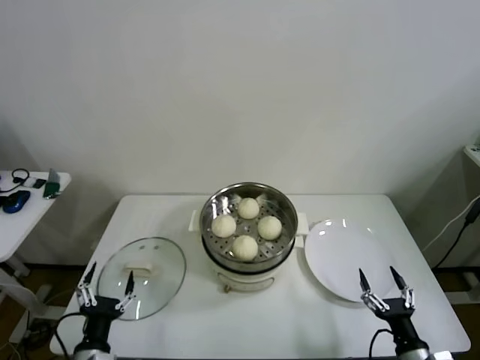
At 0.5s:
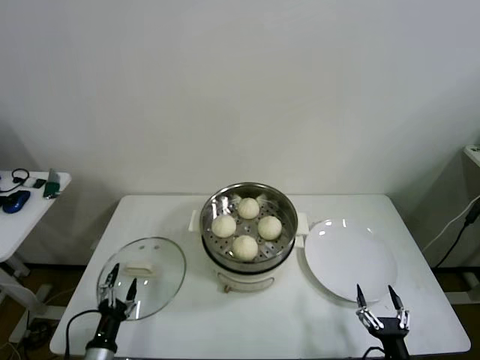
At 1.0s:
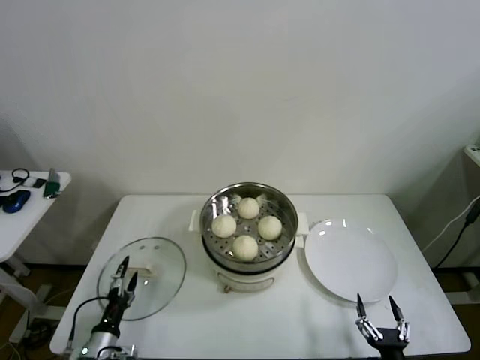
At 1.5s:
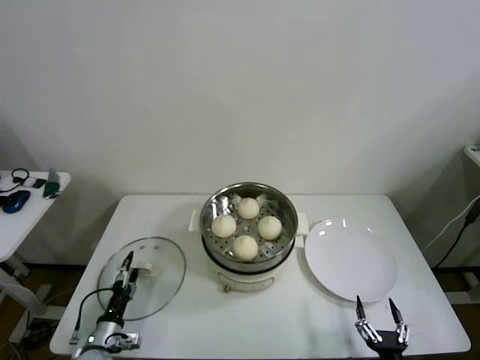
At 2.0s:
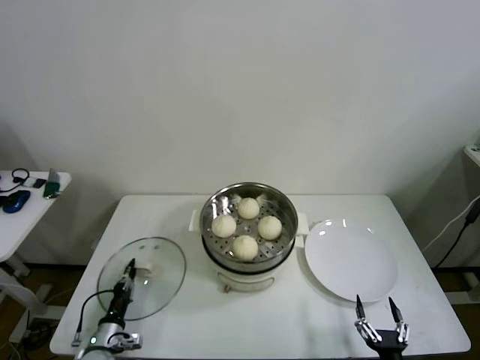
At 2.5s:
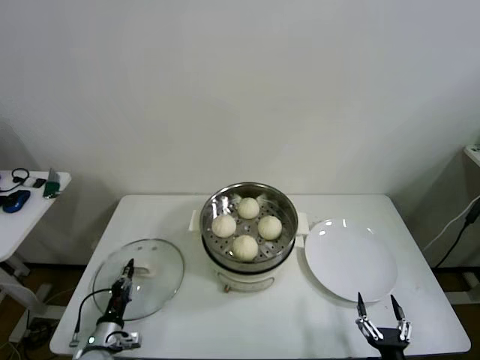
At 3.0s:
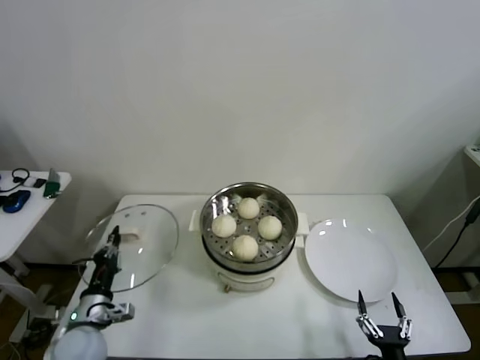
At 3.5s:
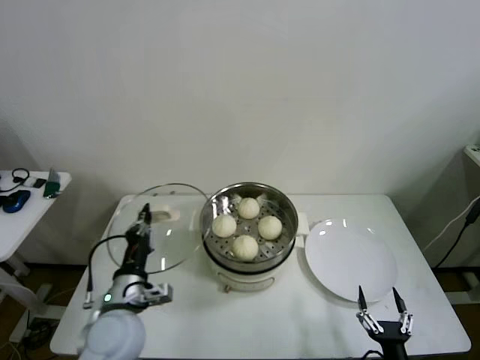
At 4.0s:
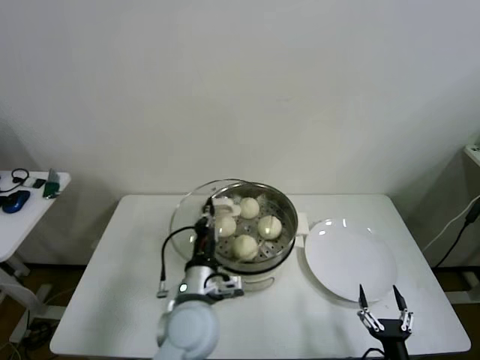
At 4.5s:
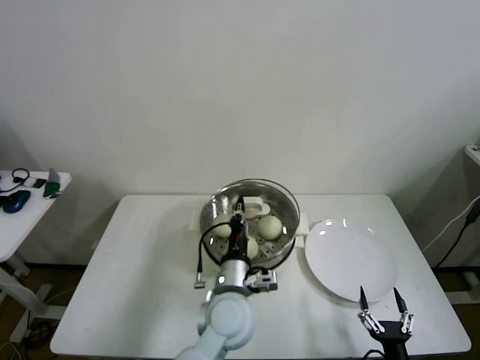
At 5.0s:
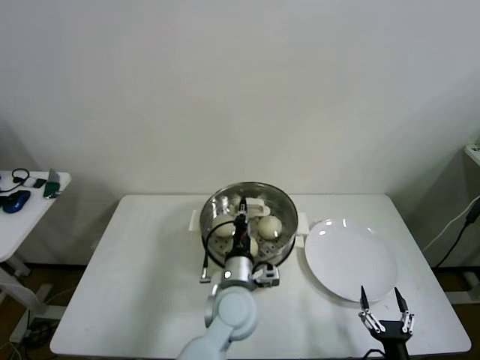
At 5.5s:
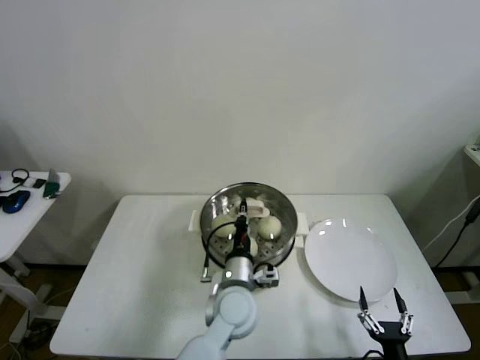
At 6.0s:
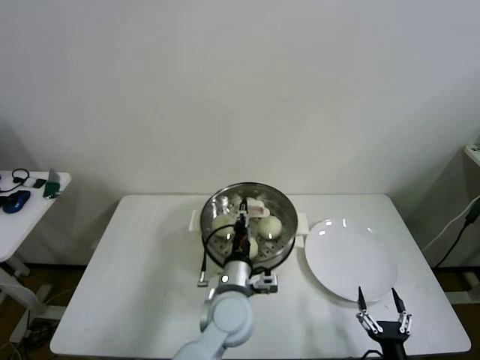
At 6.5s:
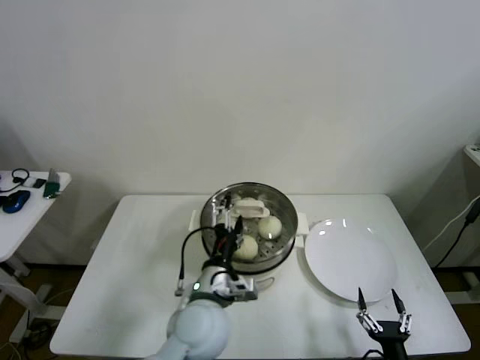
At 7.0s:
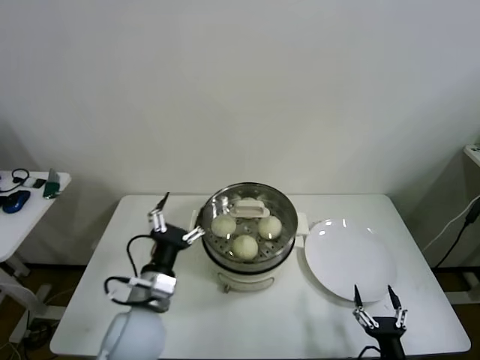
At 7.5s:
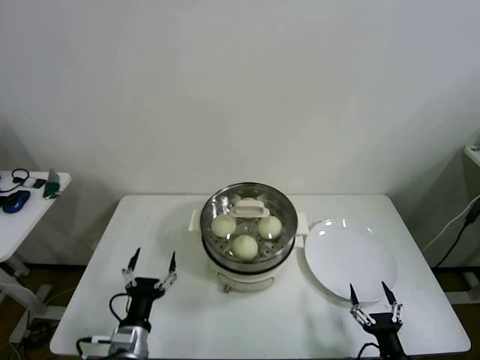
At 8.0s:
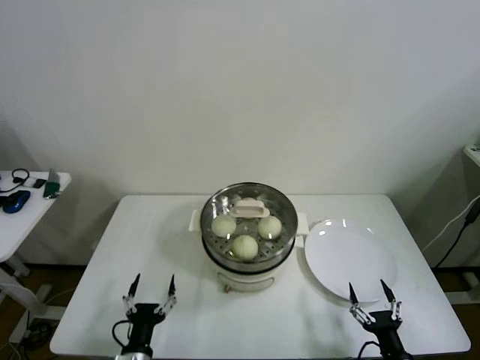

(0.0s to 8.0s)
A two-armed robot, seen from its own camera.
Step, 0.0s - 2.0s: Grasp the pot lid with left gripper.
Step, 2.5s - 5.5s: Place the pot lid on the steamer with left gripper.
0.0s - 2.0s: The right gripper moves backward and downward, roughly 10 cm. Meanwhile the left gripper travels downward, forward and to the left by about 20 cm, and closes up.
2.0s - 4.0s: The left gripper is displaced to the right and upward by roughly 35 cm.
4.0s - 6.0s: The left gripper goes about 10 cm to the right.
6.0s - 8.0s: The left gripper heads to the left, backward and downward, covering roughly 30 cm, and opens.

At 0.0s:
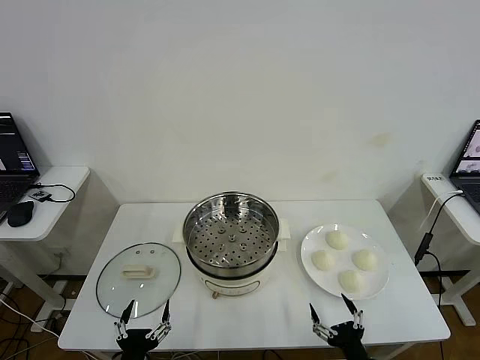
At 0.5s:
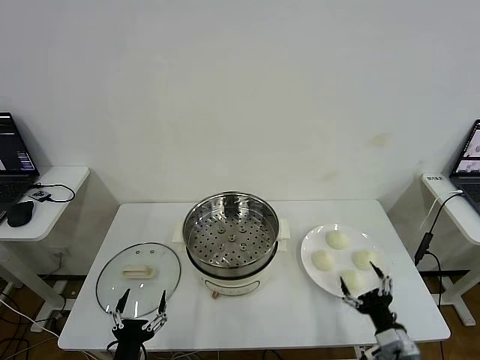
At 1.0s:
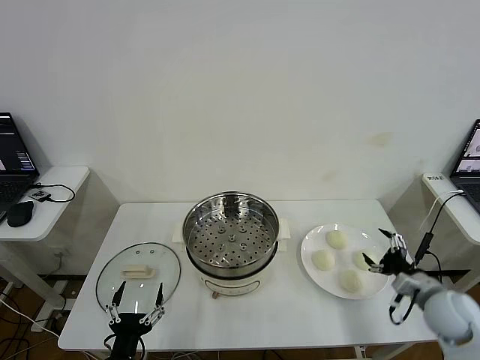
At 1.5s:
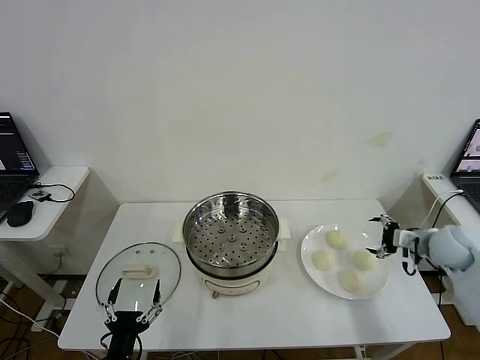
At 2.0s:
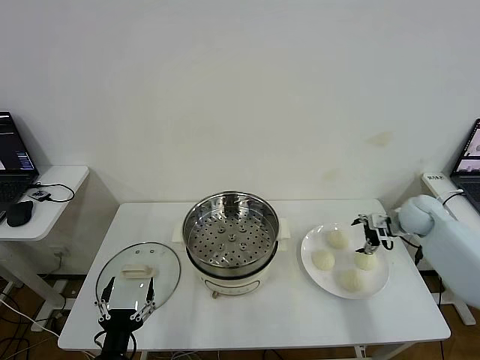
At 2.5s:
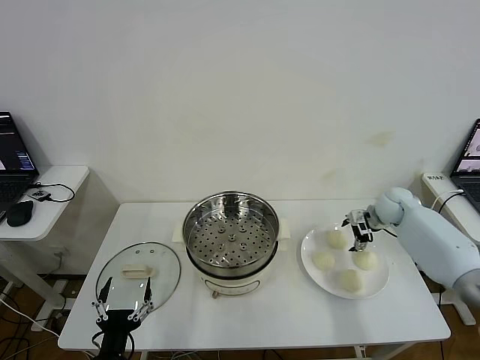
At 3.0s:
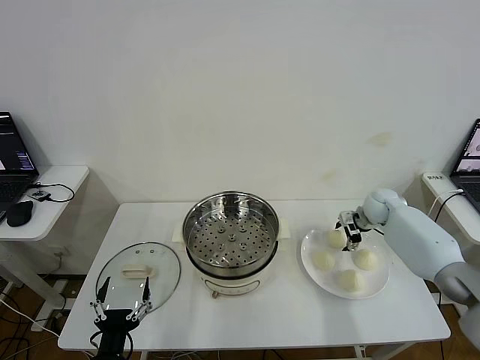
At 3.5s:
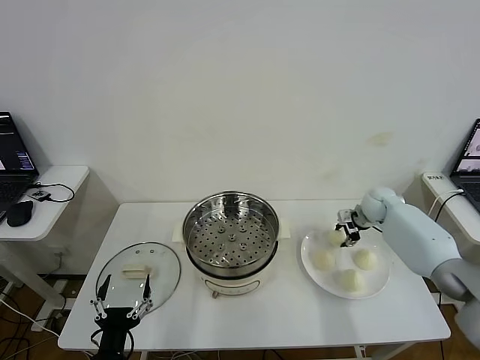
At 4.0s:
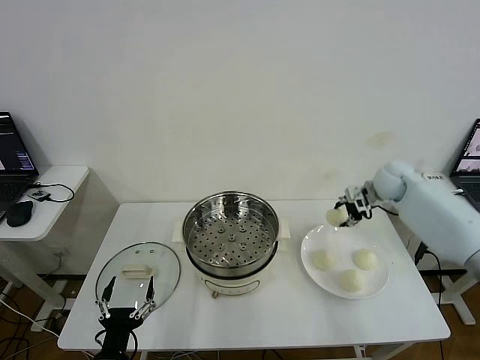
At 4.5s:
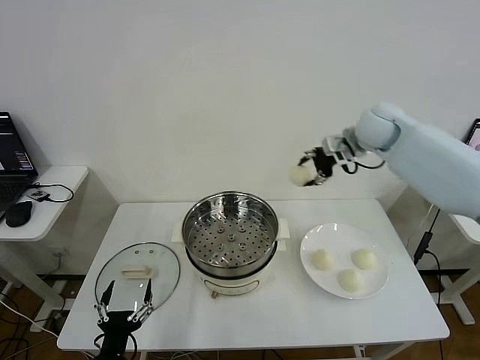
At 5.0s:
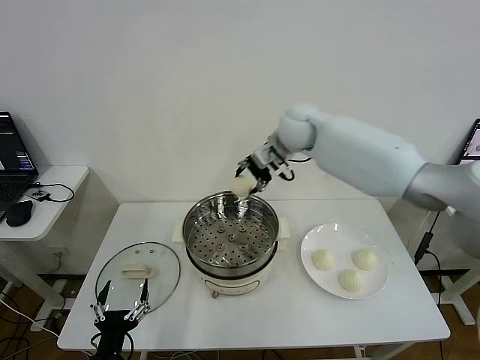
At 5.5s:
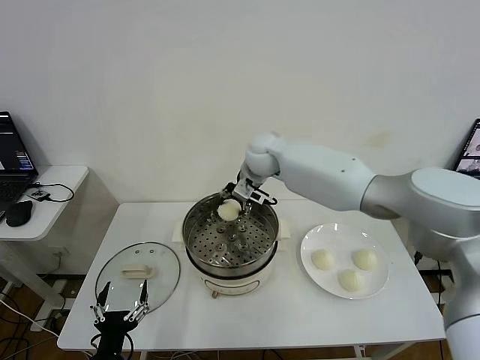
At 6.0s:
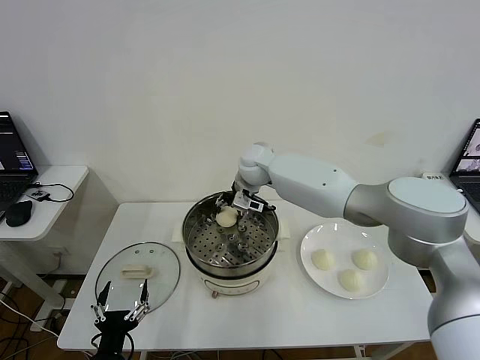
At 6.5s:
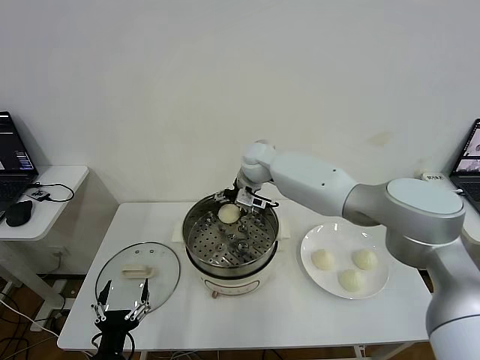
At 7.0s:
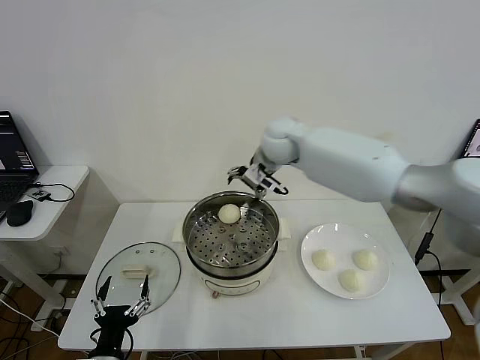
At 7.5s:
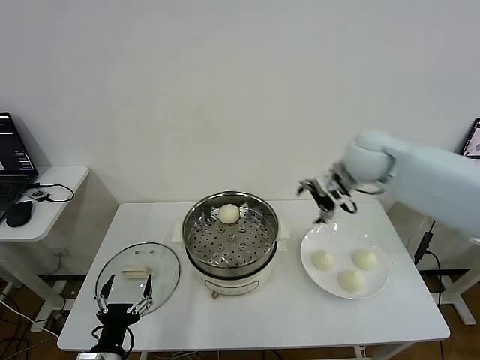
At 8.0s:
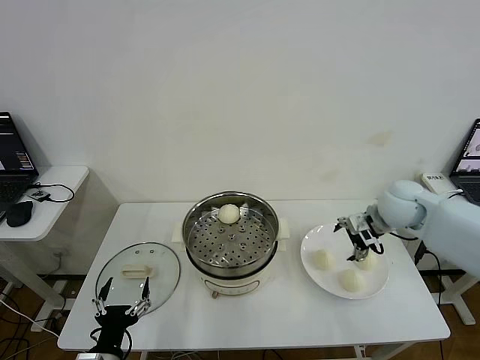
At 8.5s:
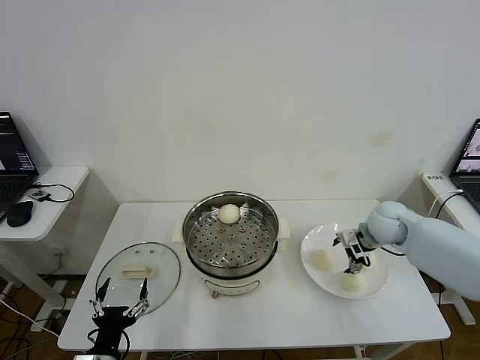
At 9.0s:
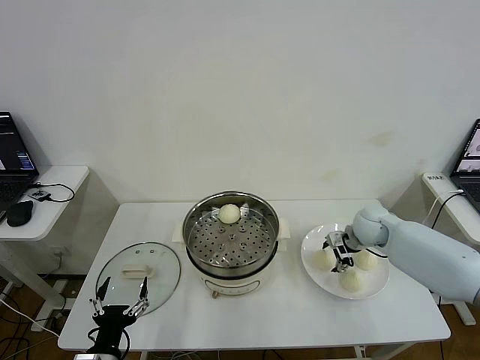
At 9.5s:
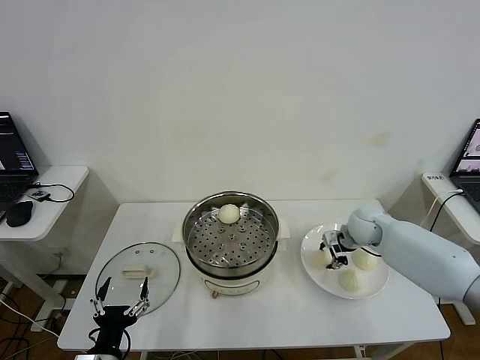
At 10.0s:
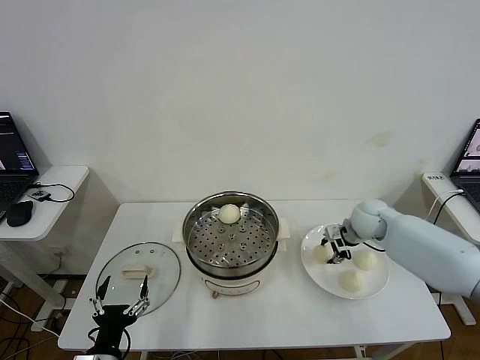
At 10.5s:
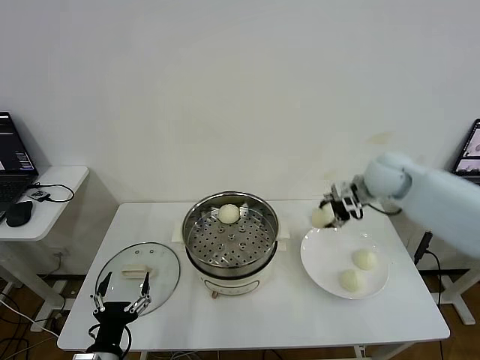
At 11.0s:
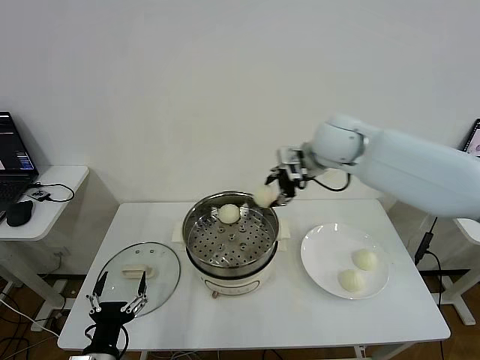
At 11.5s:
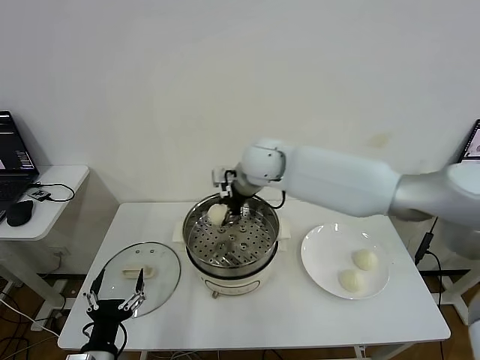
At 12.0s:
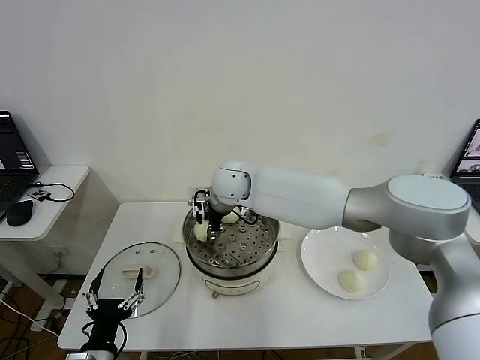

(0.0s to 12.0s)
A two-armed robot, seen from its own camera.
Step, 0.0s - 3.0s: Grasp the baozi in the plate with right gripper.
Step, 3.5s - 6.5s: Place the baozi on the steamer with right gripper.
Step, 7.0s - 9.5s: Grasp the baozi in the plate with right gripper.
2.0s - 4.0s: The right gripper goes some 10 cm upward and to the left, and closes.
4.0s - 6.0s: The right gripper goes approximately 35 cm to the left.
6.0s - 8.0s: The right gripper is displaced to the right and backward by about 35 cm, and opens up.
8.0s - 10.0s: The right gripper moves downward, about 5 cm, and closes up.
10.0s - 12.0s: The right gripper moves to the left, about 35 cm.

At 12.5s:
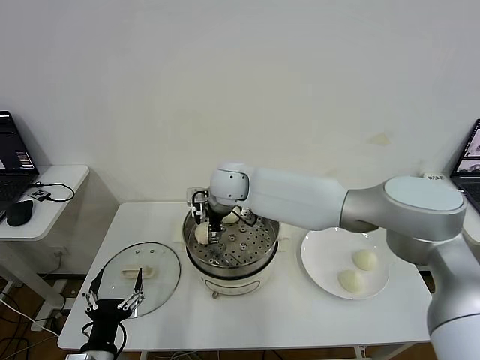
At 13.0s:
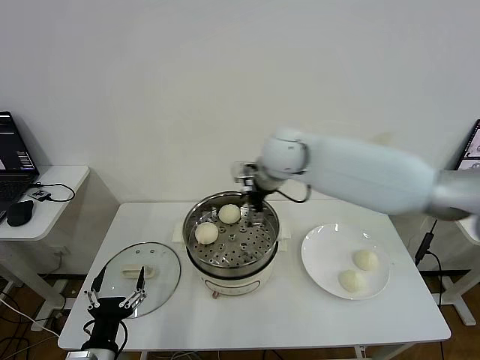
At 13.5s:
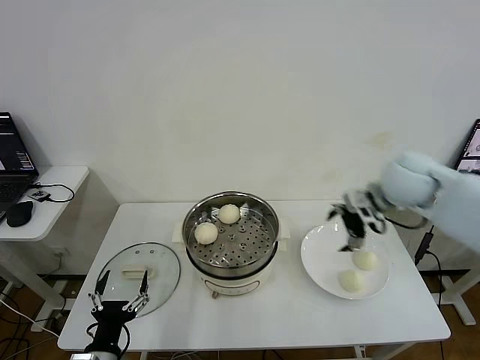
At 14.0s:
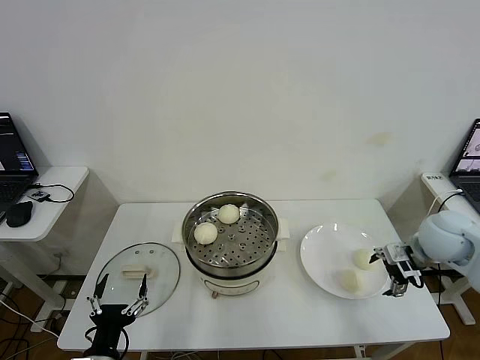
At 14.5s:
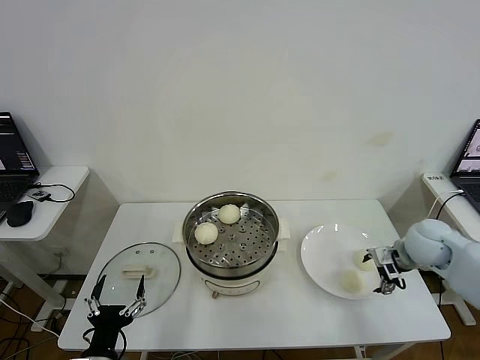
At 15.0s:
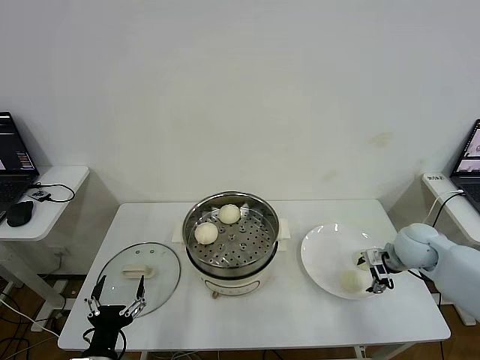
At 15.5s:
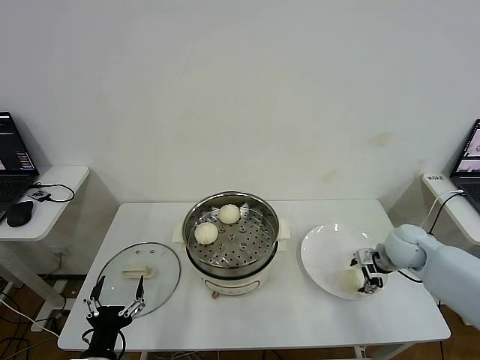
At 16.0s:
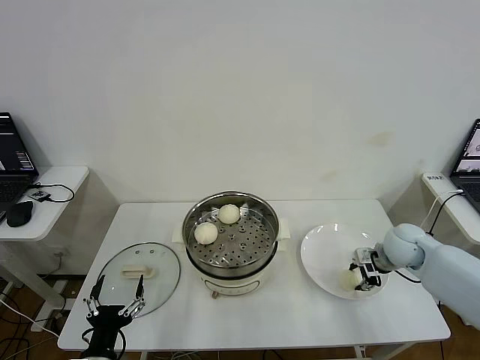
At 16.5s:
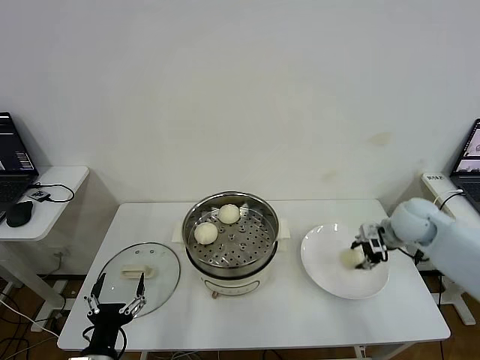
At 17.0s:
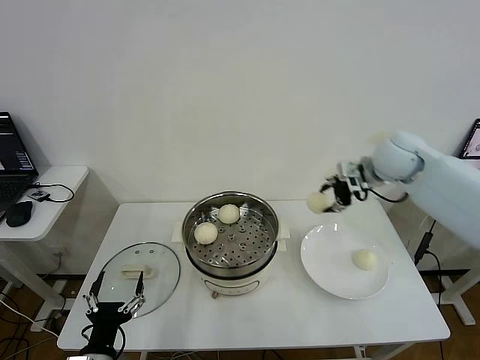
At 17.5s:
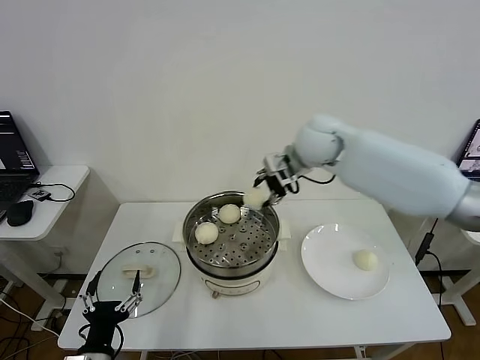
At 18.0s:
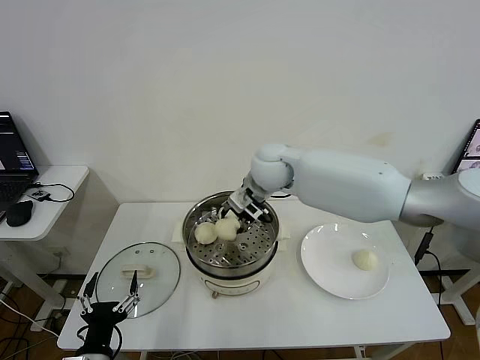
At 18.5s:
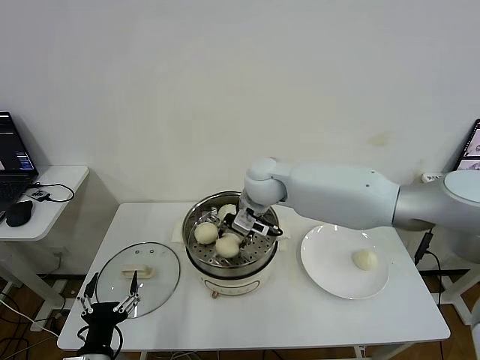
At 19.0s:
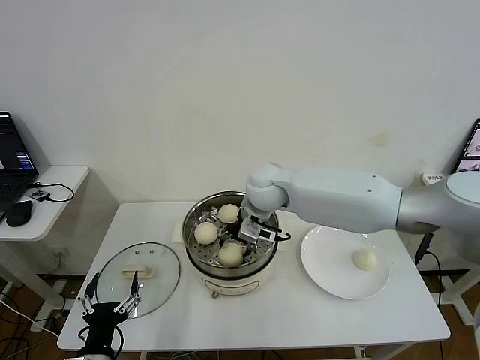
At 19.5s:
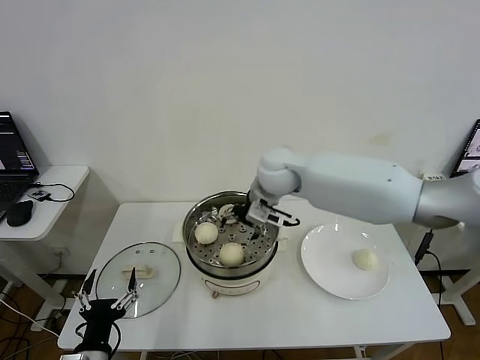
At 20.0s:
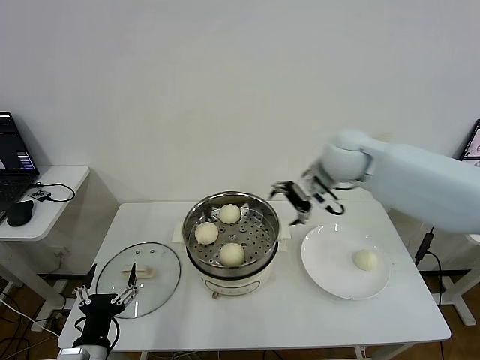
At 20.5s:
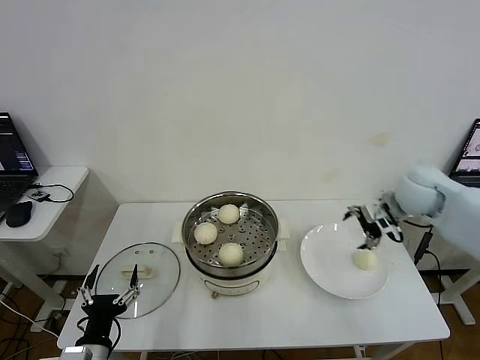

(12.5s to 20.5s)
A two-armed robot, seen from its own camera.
Step, 13.0s - 16.0s: Grasp the baozi in the plate with right gripper.
Step, 16.5s - 19.0s: Place the baozi on the steamer with right gripper.
12.5s - 14.5s: The right gripper goes about 40 cm to the right.
14.5s - 16.5s: The right gripper is displaced forward by approximately 5 cm, and closes up.
16.5s - 18.5s: The right gripper moves to the left, approximately 35 cm.
18.5s - 20.5s: The right gripper is displaced to the right by some 35 cm, and opens.
